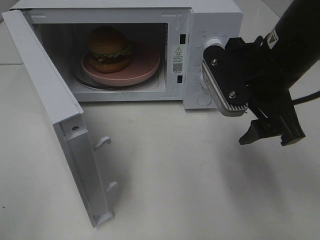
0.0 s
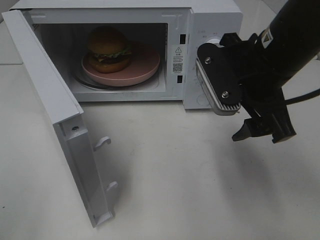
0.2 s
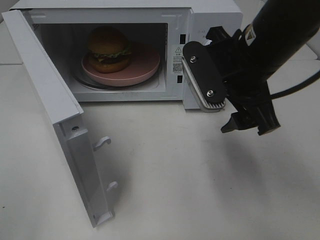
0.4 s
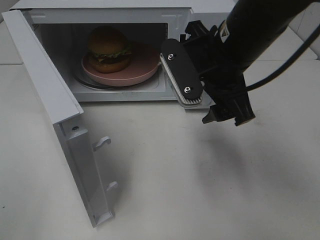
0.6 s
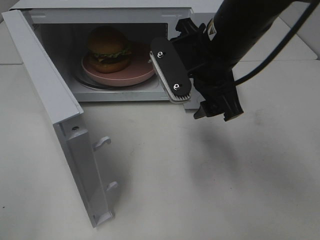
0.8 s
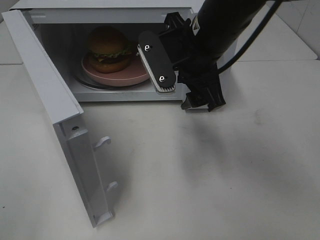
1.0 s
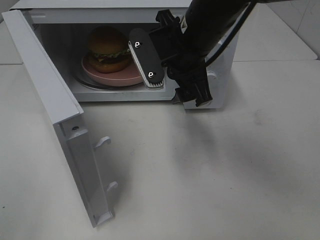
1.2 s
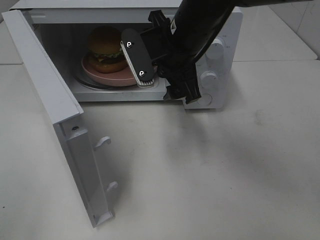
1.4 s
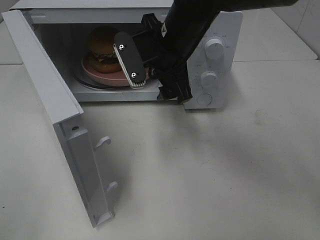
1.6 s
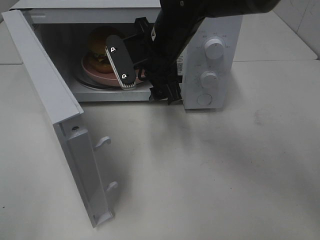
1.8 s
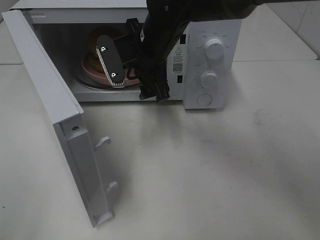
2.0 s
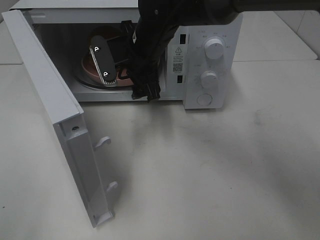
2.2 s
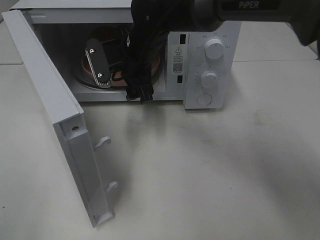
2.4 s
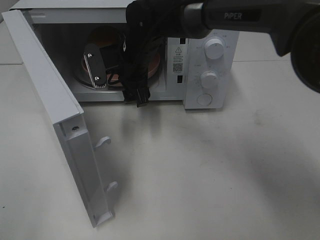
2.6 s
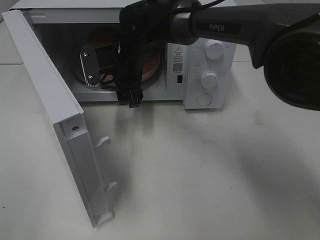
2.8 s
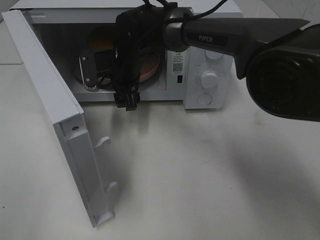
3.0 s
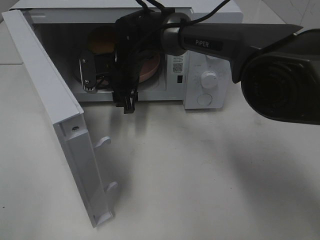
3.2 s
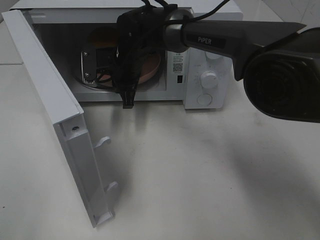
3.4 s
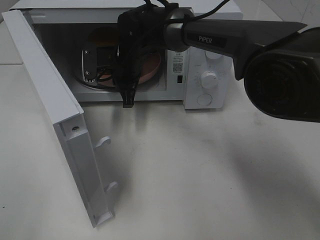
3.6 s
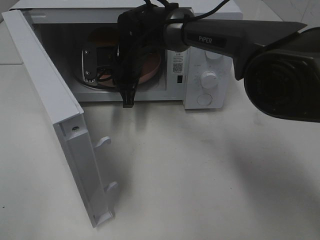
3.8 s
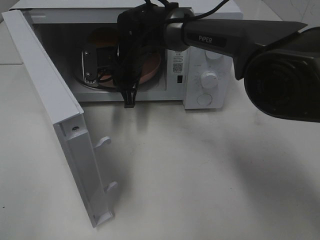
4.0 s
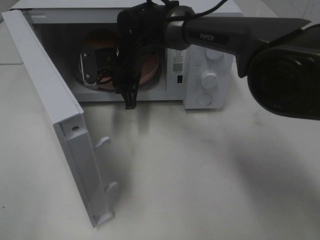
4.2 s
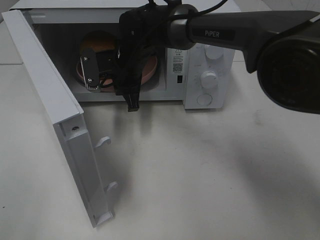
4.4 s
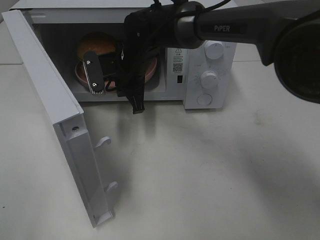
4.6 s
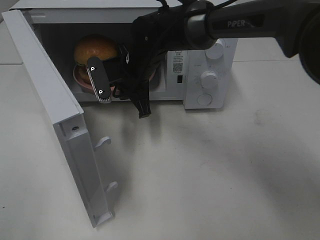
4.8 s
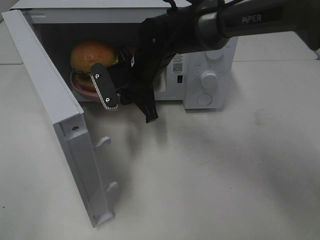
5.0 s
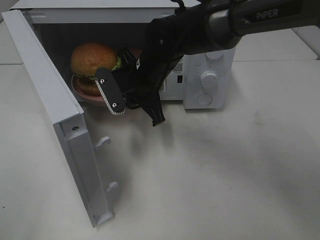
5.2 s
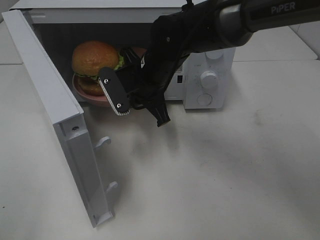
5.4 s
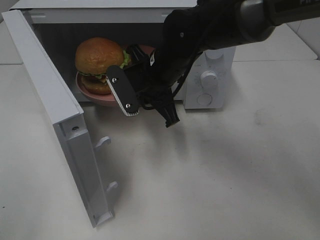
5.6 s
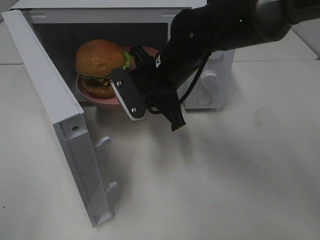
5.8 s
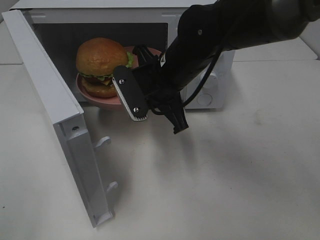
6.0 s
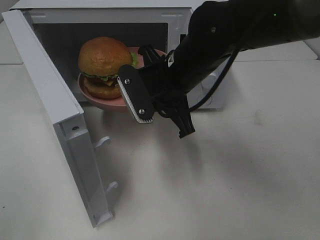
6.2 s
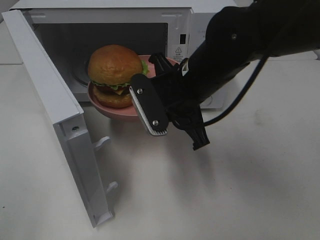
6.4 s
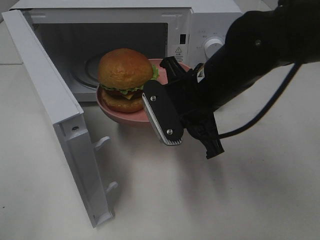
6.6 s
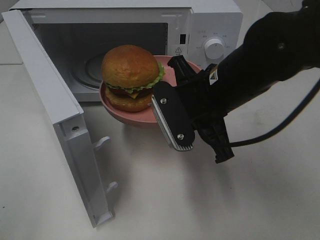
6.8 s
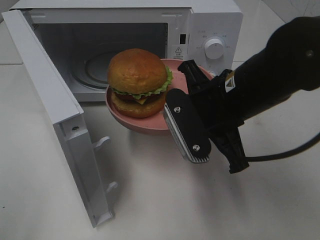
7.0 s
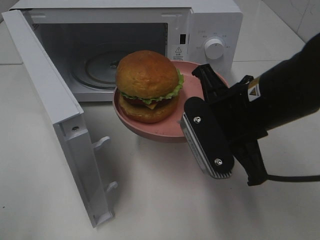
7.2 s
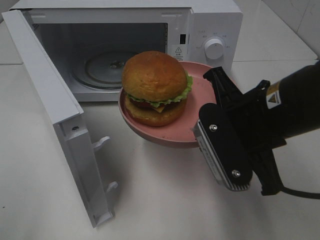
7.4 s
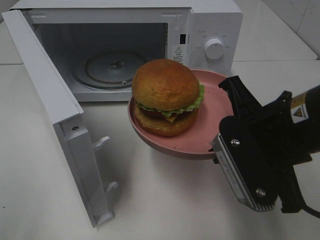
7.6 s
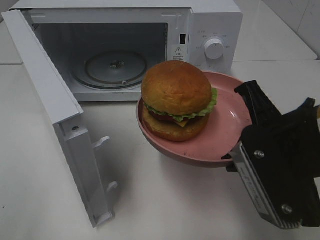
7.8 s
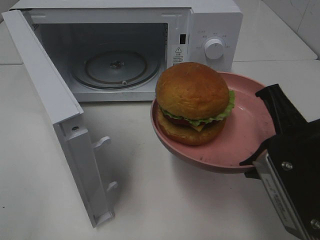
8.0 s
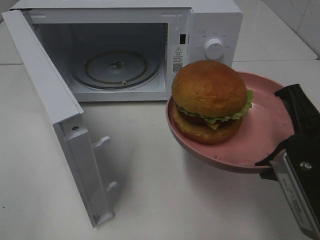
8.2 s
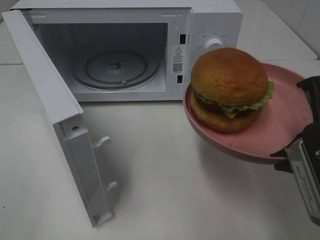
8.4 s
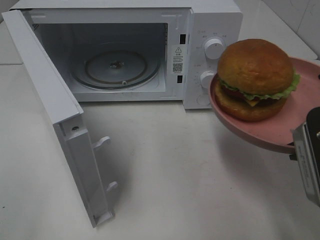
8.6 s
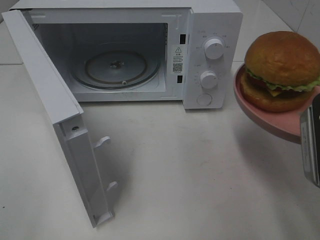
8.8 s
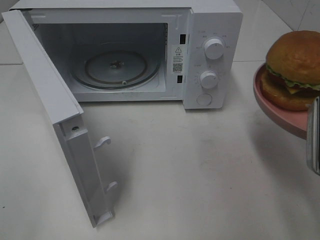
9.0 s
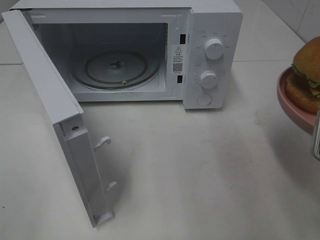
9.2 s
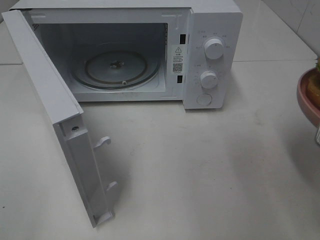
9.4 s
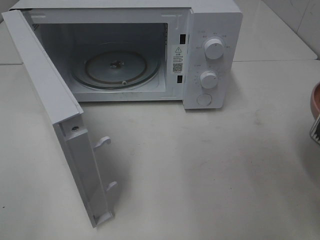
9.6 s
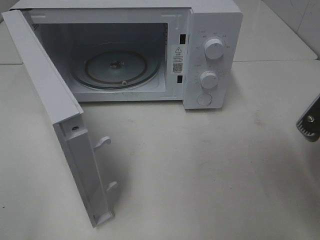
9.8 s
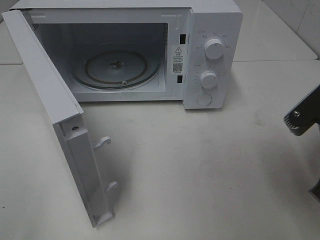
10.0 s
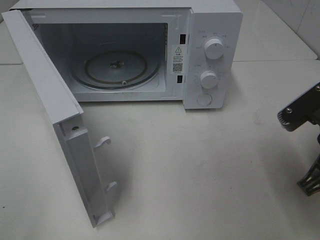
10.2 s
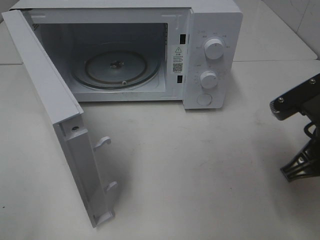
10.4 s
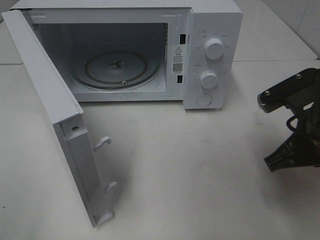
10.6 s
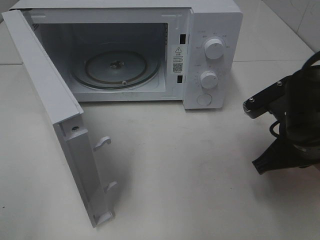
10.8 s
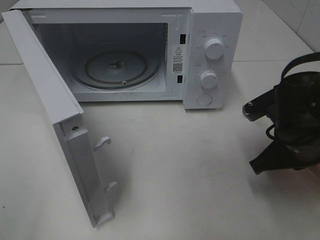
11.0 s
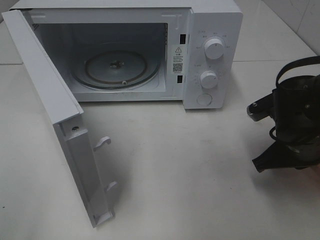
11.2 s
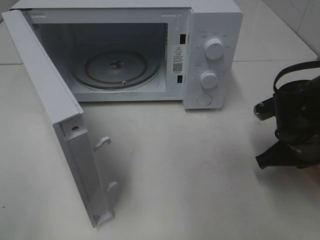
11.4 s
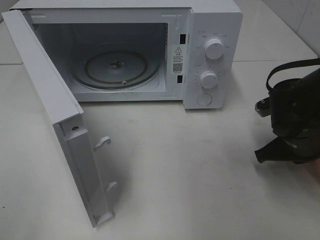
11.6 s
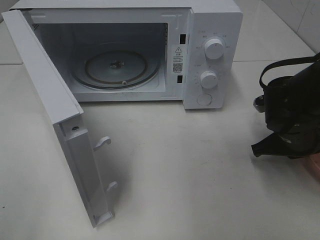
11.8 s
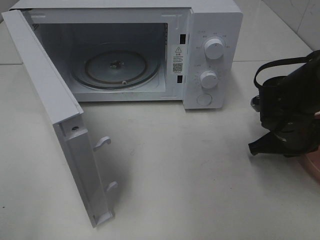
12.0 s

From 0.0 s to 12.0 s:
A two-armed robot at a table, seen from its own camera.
Task of the whole recording: Heat the burger.
Step, from 0.0 s to 3.8 s: Right hand: grab the plate with the hamburger.
From 0.0 s to 1.6 s: The right gripper shifts about 15 cm to the left and forward.
From 1.6 s to 3.0 s: The right gripper shifts approximately 15 cm forward, downward and to the left.
From 3.0 s to 4.4 s: The right gripper closes.
From 4.4 s to 6.0 s: The right gripper shifts roughly 15 cm backward and to the right.
From 6.0 s to 7.6 s: The right gripper heads backward and to the right, covering about 20 cm.
From 7.6 s to 9.0 s: The right gripper shifts approximately 10 cm to the right.
From 9.0 s to 10.4 s: The right gripper goes about 5 cm downward.
From 10.4 s to 12.0 s: The right gripper heads forward and downward, covering some 15 cm.

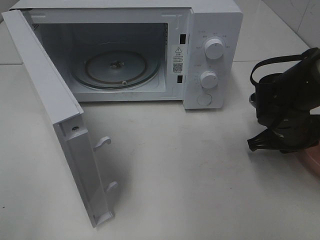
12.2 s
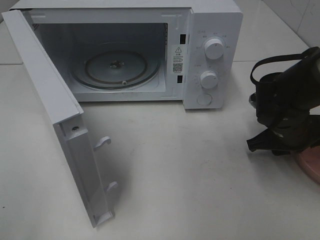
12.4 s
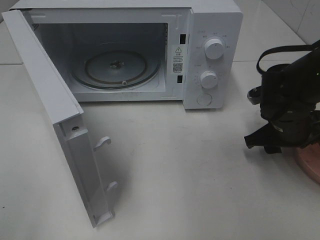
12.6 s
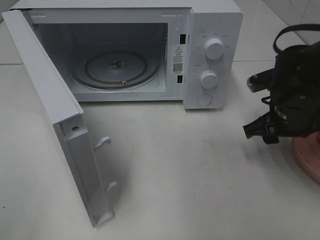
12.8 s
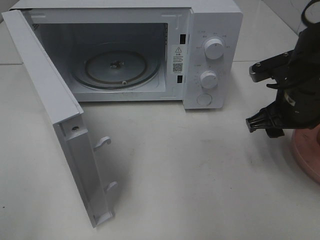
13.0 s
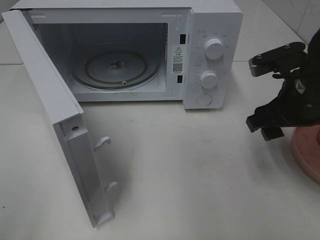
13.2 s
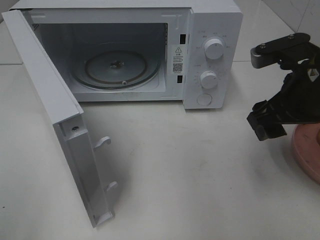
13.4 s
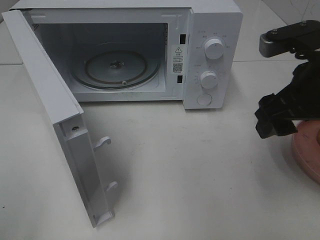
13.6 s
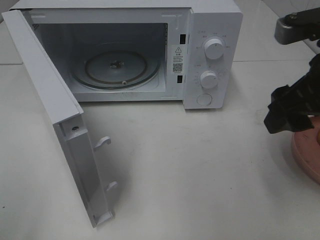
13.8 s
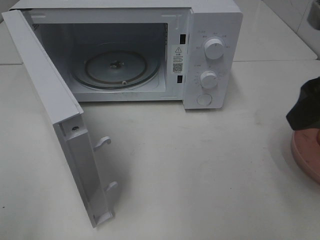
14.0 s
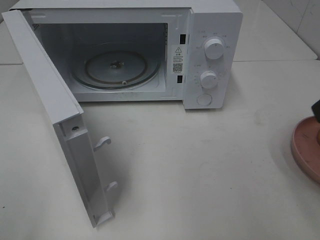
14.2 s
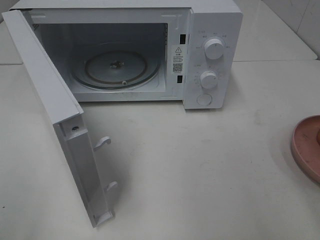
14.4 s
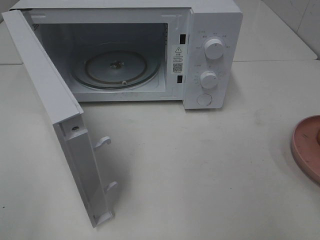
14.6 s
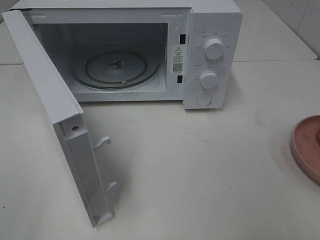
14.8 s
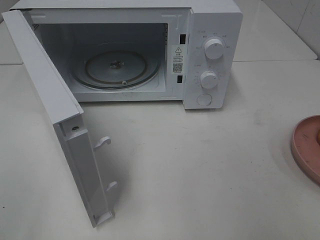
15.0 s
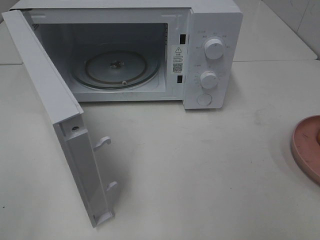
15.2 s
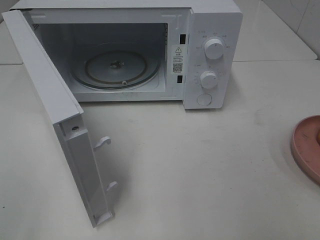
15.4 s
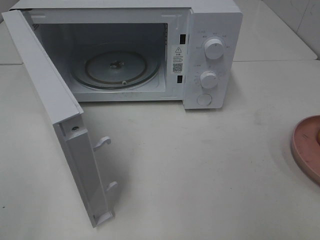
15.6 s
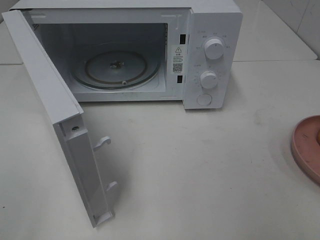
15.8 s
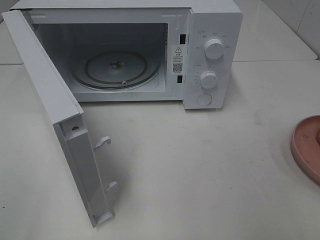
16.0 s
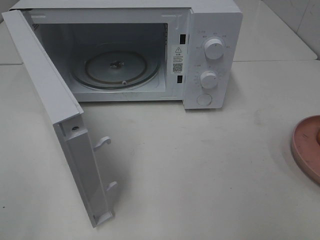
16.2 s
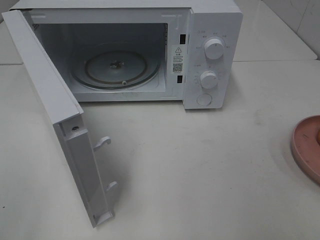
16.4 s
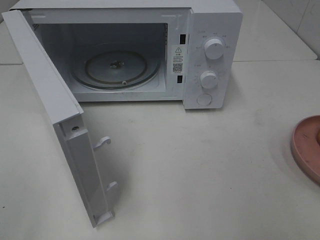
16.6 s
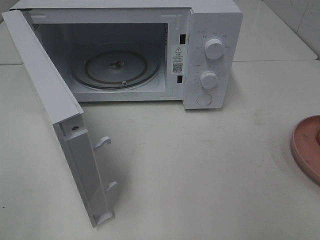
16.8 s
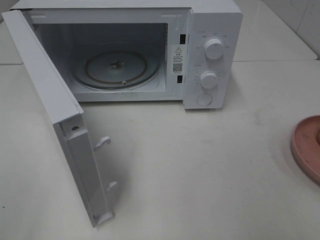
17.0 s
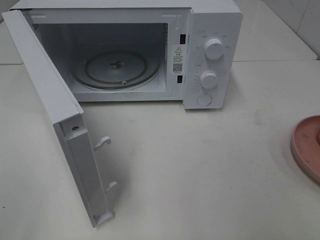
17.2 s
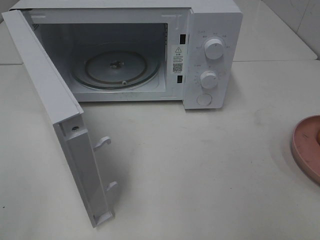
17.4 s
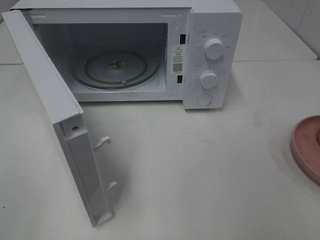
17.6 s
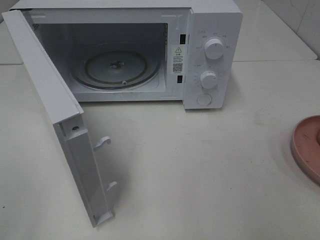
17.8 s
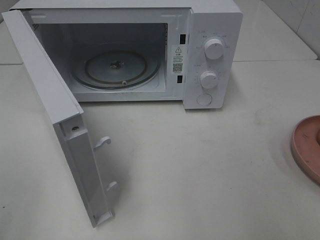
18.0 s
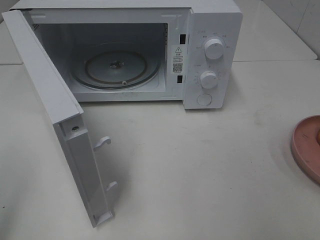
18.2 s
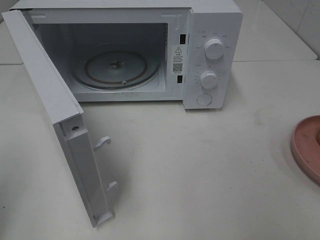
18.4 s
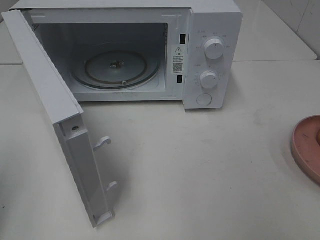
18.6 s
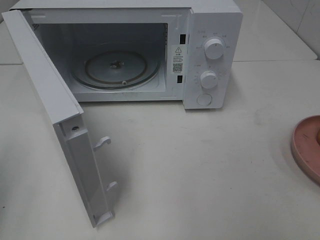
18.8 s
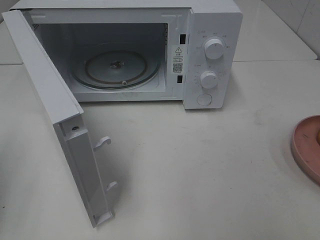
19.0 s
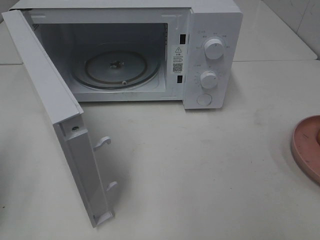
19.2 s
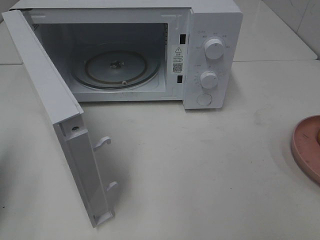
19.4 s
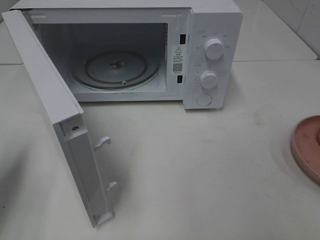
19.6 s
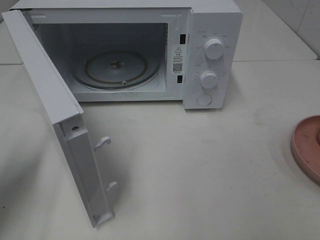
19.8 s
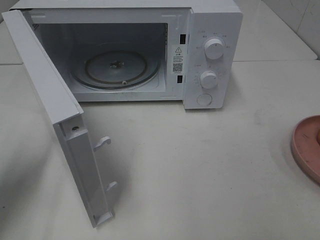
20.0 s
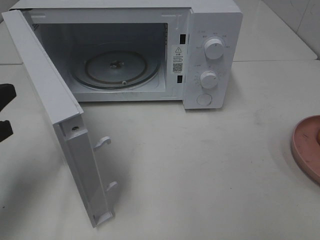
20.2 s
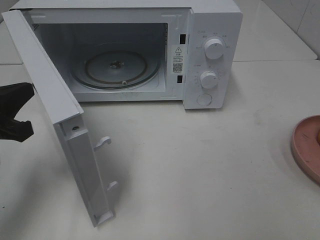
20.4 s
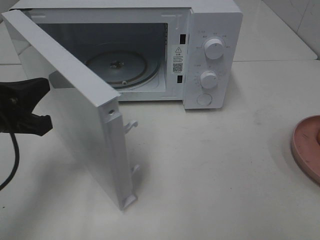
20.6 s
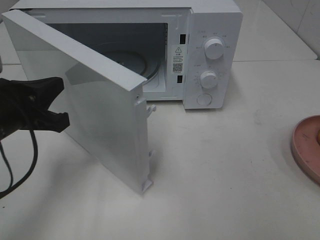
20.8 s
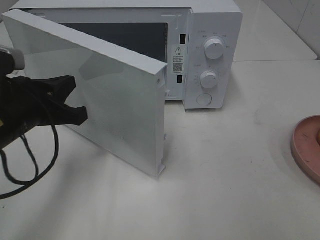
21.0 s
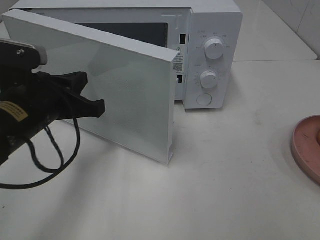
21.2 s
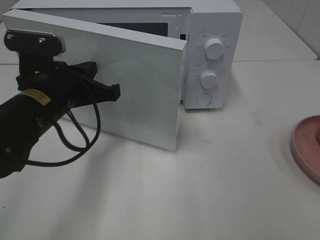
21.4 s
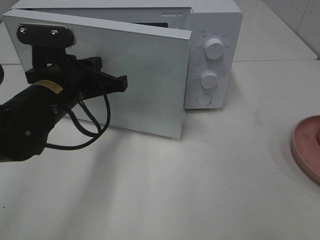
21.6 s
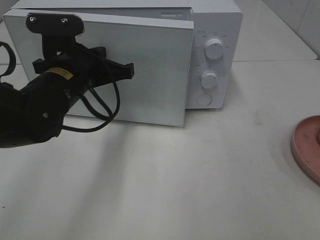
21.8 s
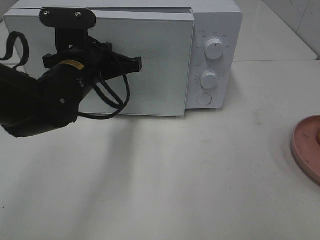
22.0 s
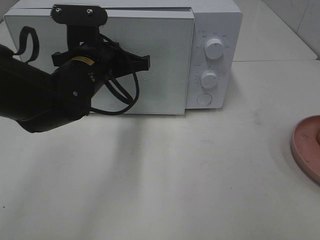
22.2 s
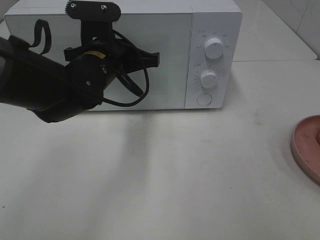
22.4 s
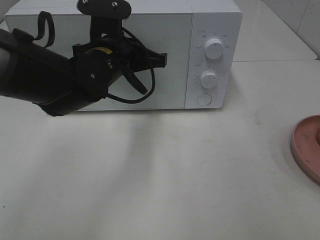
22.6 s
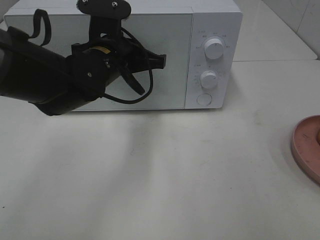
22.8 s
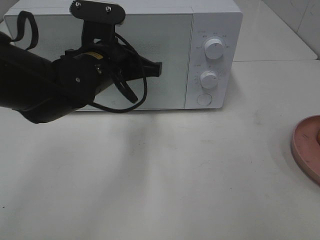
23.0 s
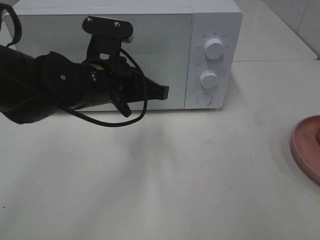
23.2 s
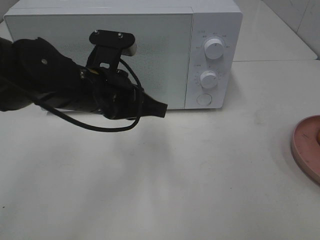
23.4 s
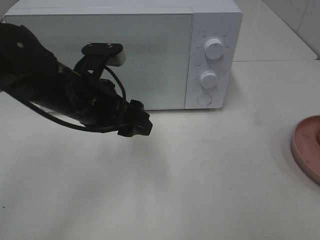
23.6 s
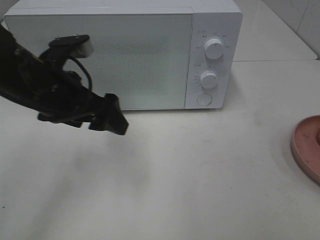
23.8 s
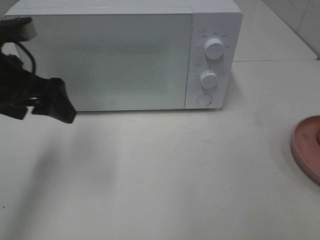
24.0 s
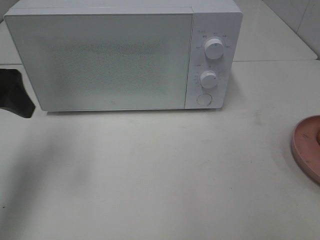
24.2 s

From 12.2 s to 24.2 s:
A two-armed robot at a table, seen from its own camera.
Task of the whole recording: Heat the burger.
Step, from 13.0 s to 23.4 s: Left hand: close the microwave door.
From 12.2 s to 13.8 s: The right gripper shifts about 20 cm upward and backward, and opens its fingers.
From 13.8 s to 15.2 s: The right gripper moves backward and to the right, some 20 cm.
From 15.2 s to 16.6 s: The two grippers keep their place.
From 18.2 s to 19.8 s: The left gripper moves forward and downward, some 20 cm.
From 19.8 s to 21.2 s: The left gripper goes some 15 cm to the right.
From 21.2 s to 22.6 s: The left gripper goes about 15 cm forward and to the right.
From 22.6 s to 24.2 s: The left gripper is displaced to the left, backward and upward by some 20 cm, and opens up.
